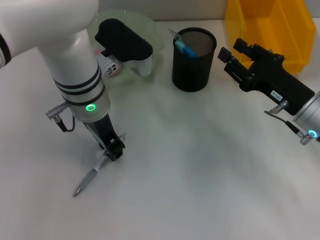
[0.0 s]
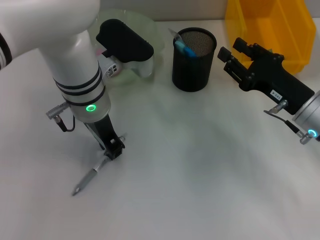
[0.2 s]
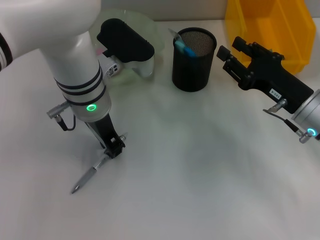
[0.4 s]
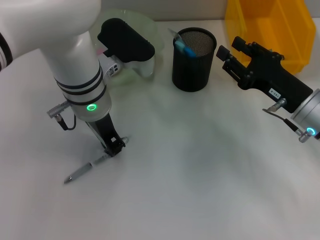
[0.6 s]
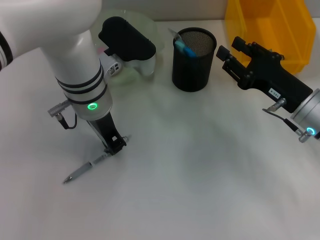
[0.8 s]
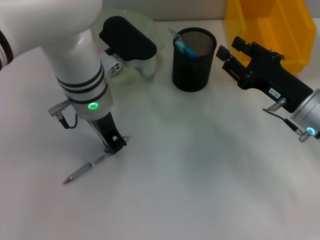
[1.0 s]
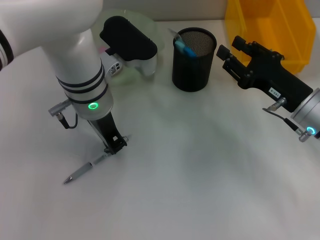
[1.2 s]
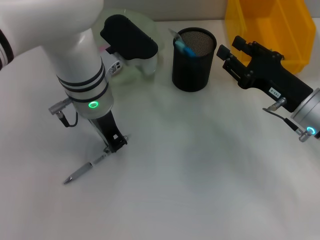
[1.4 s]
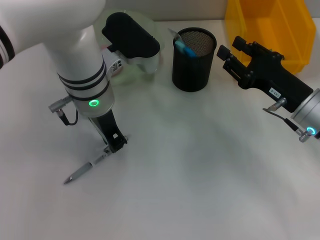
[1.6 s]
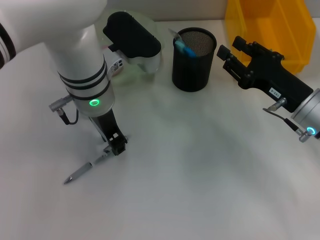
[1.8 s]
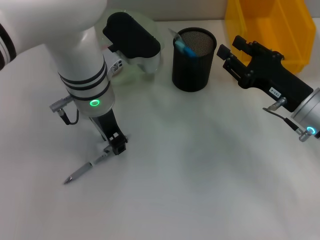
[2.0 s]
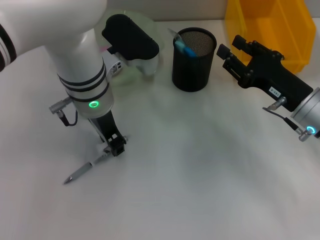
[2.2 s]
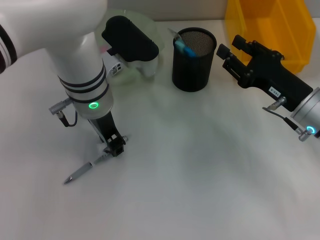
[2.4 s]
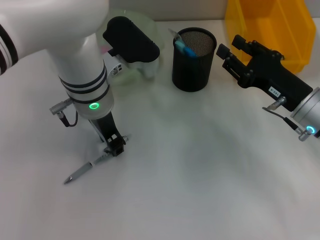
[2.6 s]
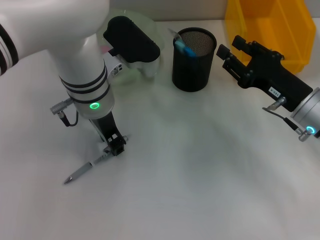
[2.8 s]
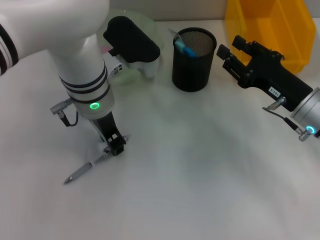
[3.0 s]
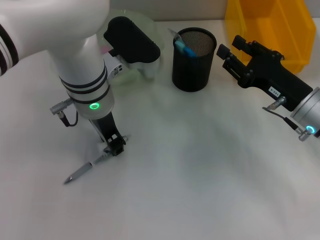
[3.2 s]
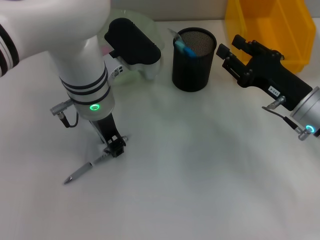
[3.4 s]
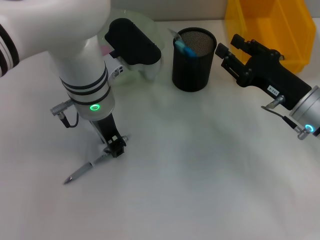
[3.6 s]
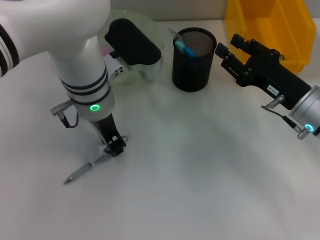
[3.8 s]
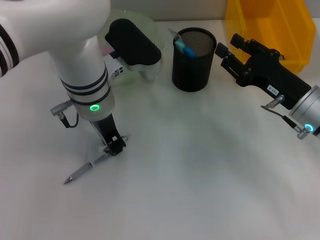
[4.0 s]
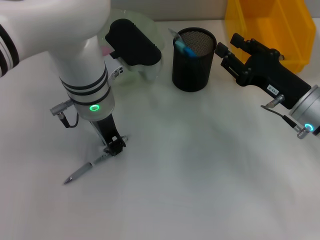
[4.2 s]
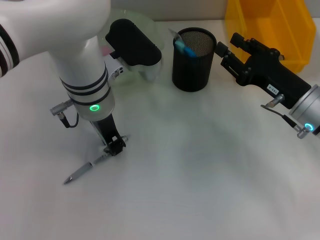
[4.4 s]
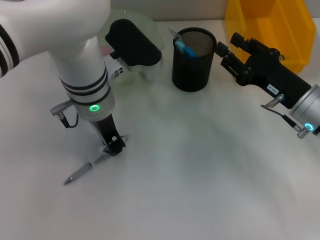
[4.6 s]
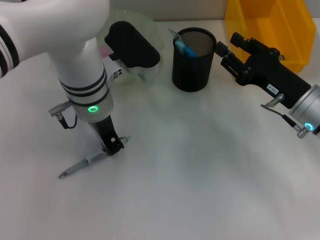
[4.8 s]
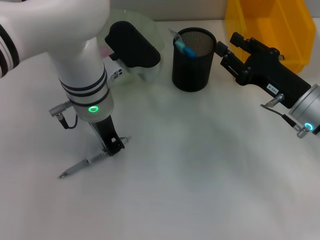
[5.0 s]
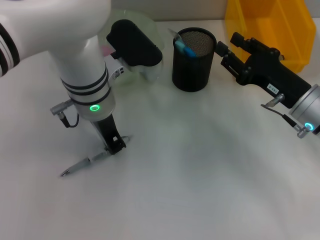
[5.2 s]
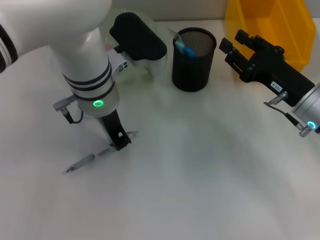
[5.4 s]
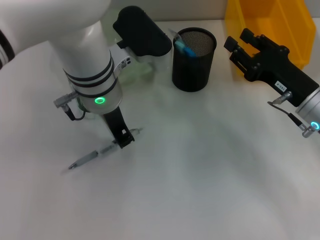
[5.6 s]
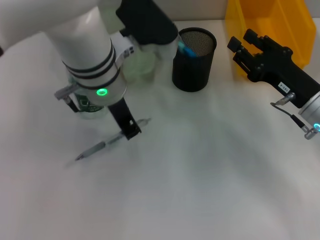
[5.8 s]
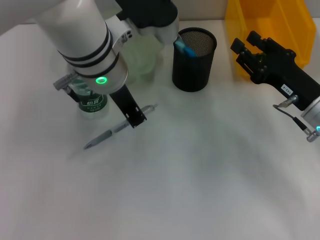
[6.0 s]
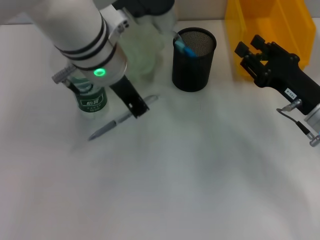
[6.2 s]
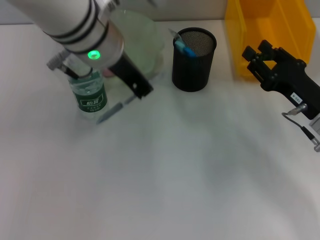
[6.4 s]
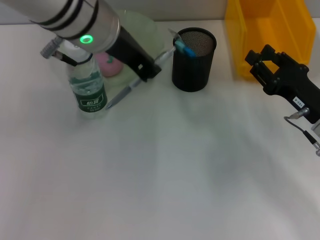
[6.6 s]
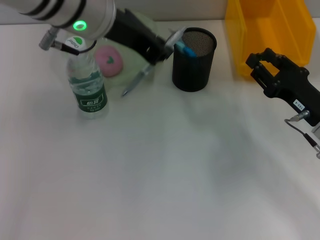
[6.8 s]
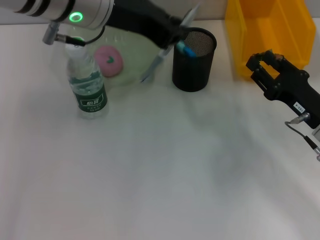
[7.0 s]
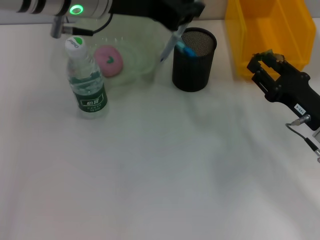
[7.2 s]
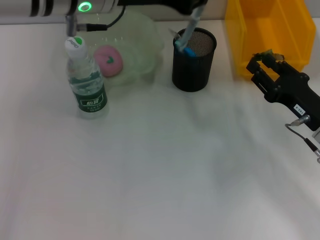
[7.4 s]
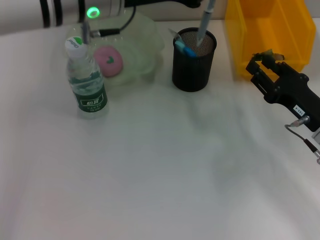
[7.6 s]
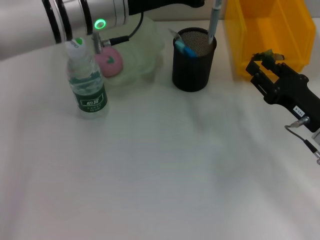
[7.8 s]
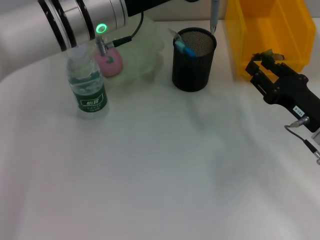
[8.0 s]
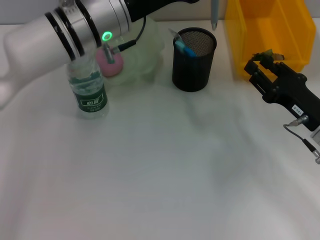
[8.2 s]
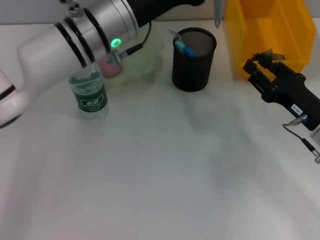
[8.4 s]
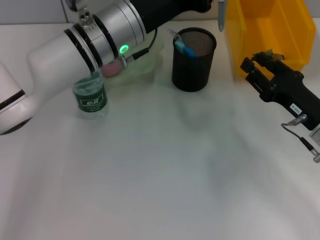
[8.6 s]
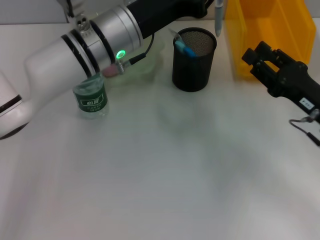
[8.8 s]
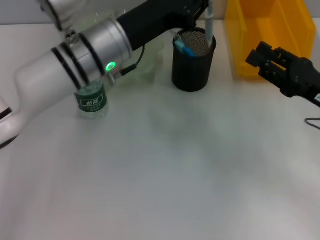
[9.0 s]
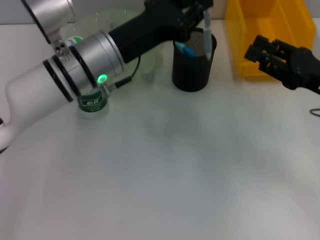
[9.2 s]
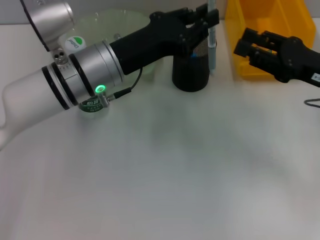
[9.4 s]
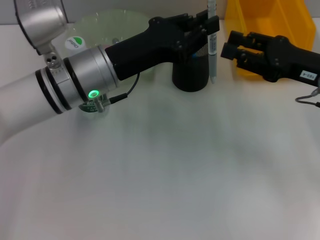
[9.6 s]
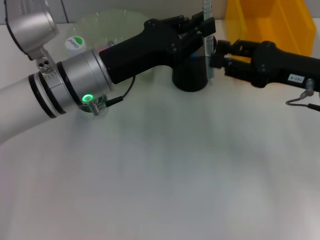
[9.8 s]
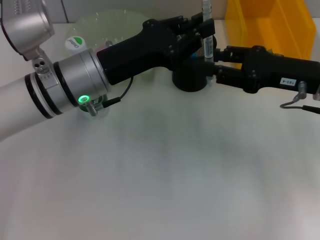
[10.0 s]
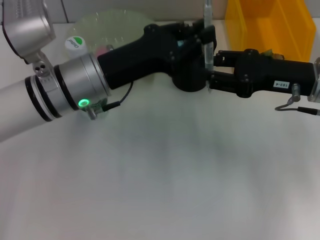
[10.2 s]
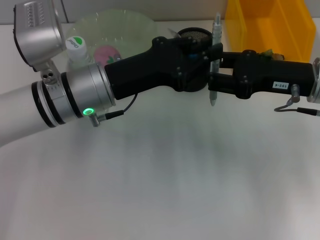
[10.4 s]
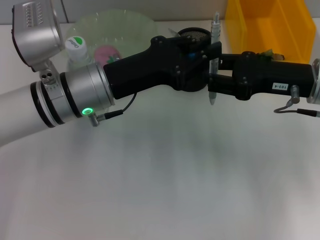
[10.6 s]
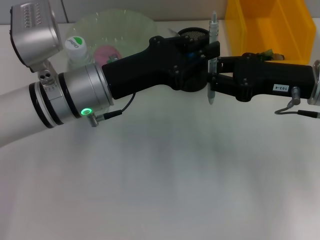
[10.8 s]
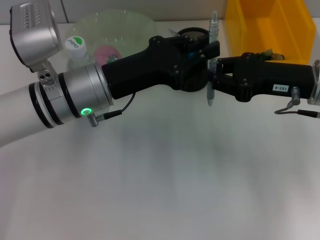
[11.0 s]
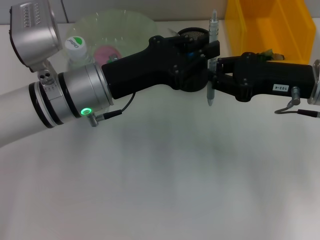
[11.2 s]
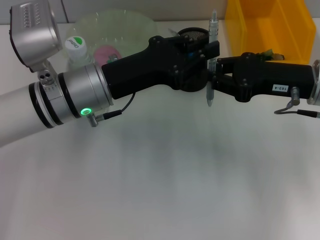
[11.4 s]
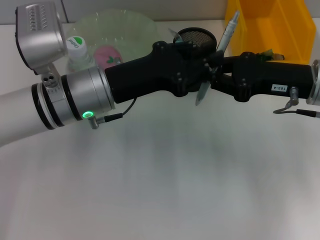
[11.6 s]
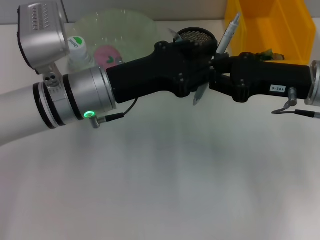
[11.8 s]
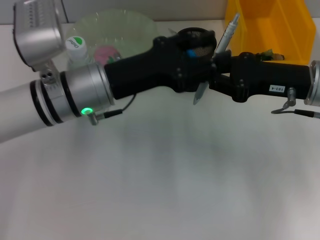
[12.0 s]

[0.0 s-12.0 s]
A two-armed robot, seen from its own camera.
Step, 0.0 to 5.0 s: Grab the gray spring-action pen with the left hand.
0.0 to 1.6 s: Neither gripper changes place.
1.6 to 4.4 s: Both grippers stay put.
4.4 to 6.0 s: The left gripper moves upward, about 5 cm.
7.6 to 9.0 s: The left gripper is displaced downward by some 10 cm, while the right gripper shifts by approximately 5 cm.
9.0 to 10.4 s: The right gripper travels upward and to the left by about 5 cm.
10.4 to 12.0 s: The right gripper closes. The left gripper opens.

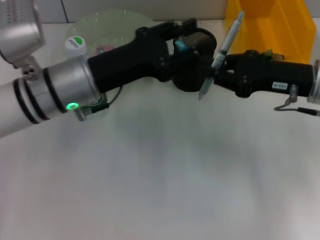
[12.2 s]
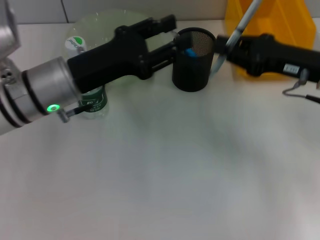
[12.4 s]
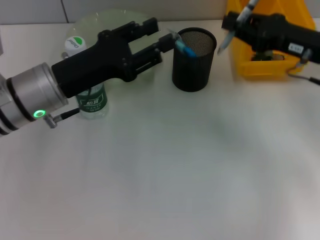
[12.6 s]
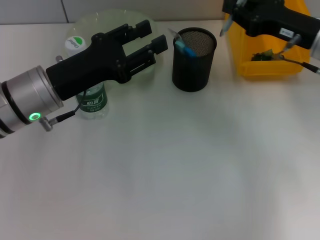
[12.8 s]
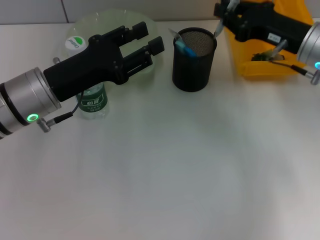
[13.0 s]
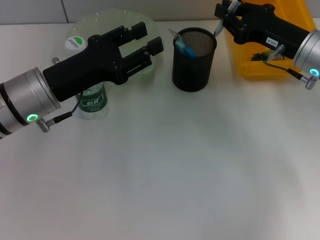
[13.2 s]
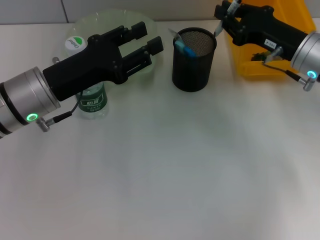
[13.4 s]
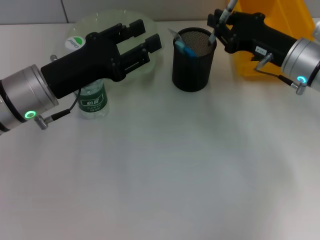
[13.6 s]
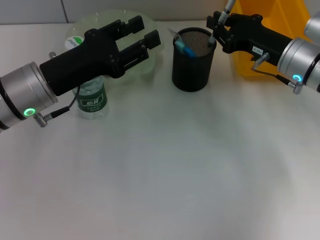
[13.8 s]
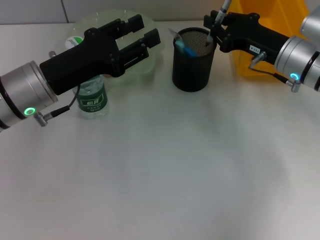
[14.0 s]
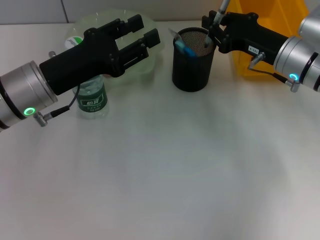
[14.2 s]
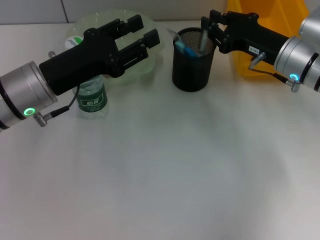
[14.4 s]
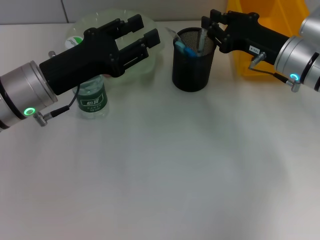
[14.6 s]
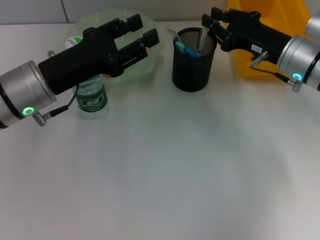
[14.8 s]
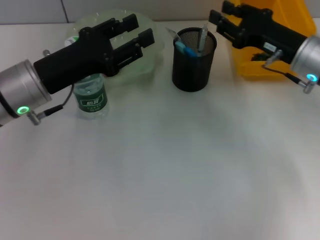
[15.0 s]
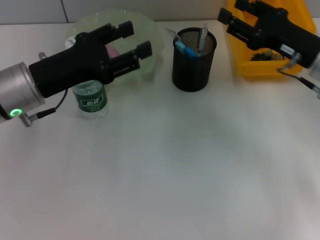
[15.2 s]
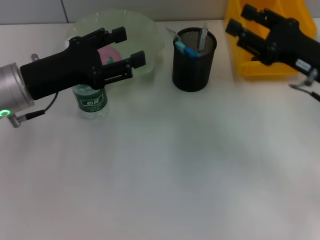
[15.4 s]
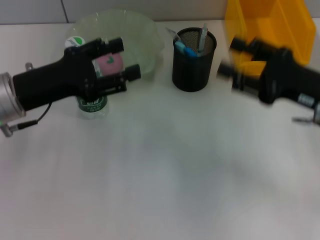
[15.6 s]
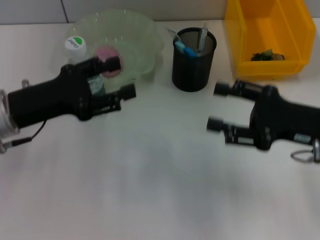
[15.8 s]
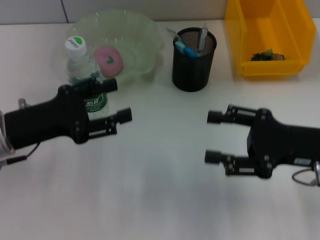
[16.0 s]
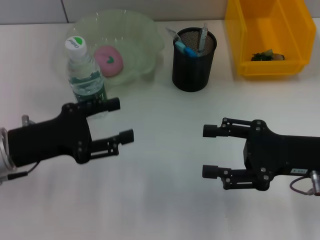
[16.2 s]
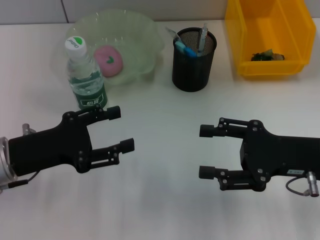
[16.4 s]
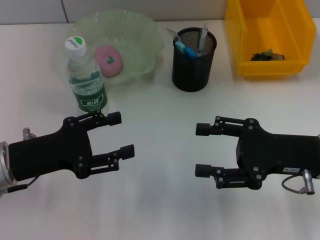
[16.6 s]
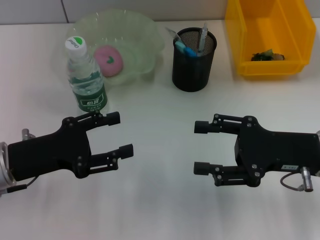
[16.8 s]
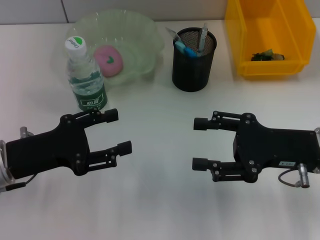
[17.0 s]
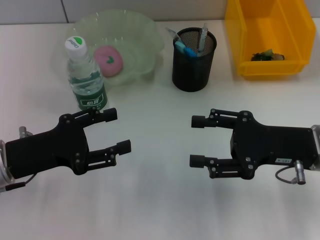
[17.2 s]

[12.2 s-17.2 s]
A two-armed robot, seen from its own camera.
Step, 13.0 to 15.0 s: Place the gray spring-action pen into the pen holder with the right hand.
12.2 to 13.8 s: The right gripper heads forward, covering about 5 cm; the left gripper shifts approximately 5 cm to the left.
13.8 to 15.6 s: The right gripper heads backward, covering roughly 10 cm, and opens its fingers.
15.6 to 17.2 s: The left gripper goes approximately 5 cm backward.

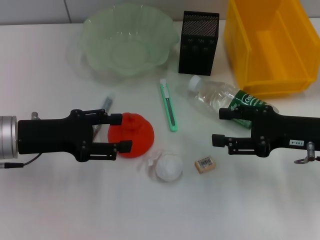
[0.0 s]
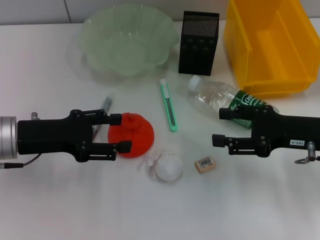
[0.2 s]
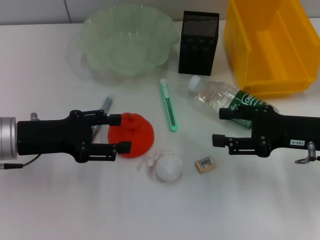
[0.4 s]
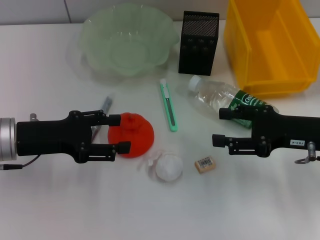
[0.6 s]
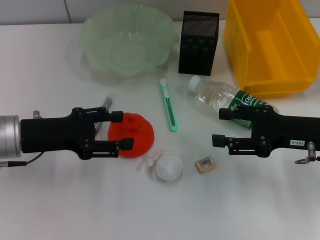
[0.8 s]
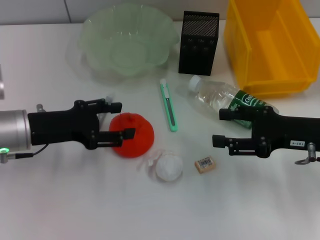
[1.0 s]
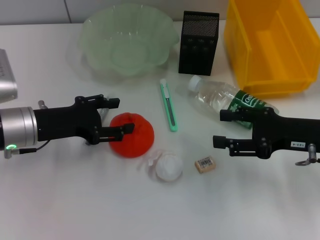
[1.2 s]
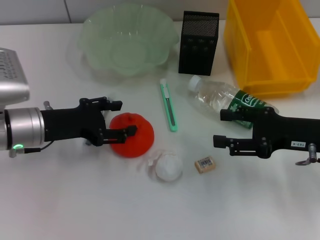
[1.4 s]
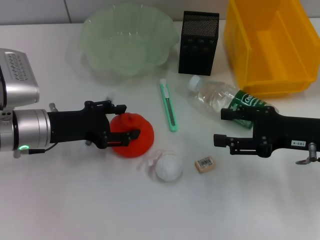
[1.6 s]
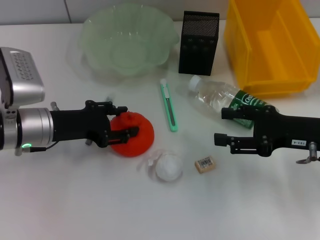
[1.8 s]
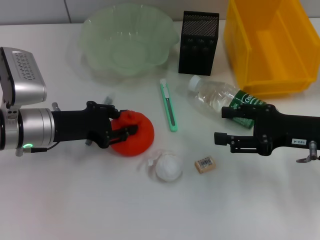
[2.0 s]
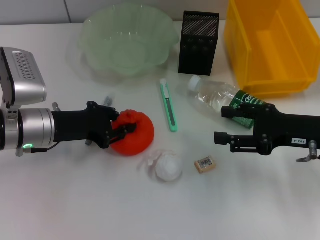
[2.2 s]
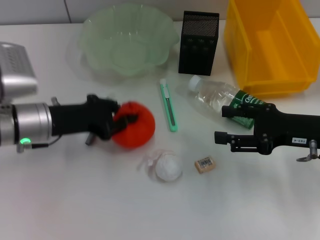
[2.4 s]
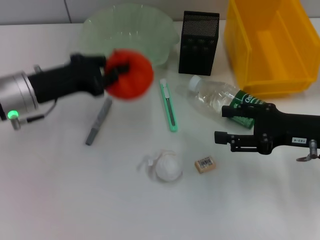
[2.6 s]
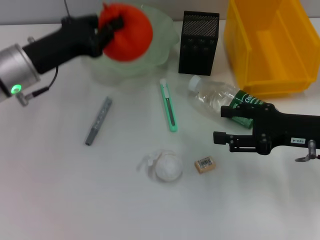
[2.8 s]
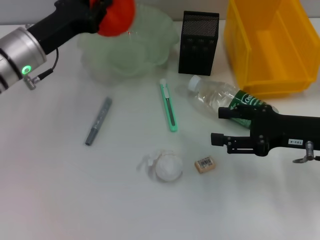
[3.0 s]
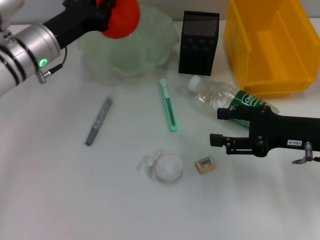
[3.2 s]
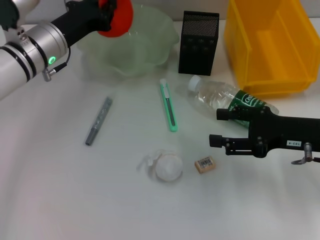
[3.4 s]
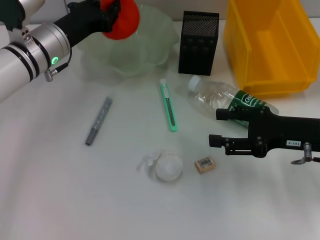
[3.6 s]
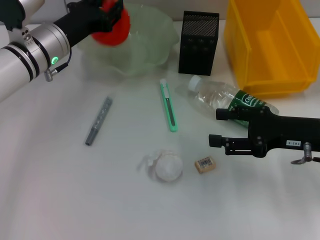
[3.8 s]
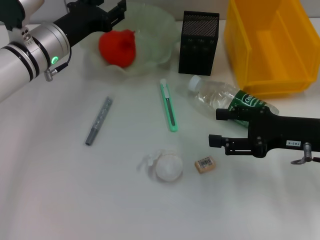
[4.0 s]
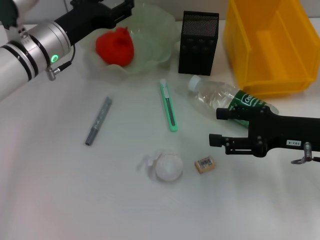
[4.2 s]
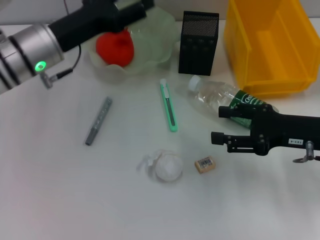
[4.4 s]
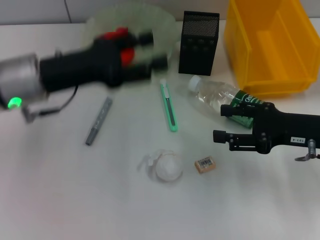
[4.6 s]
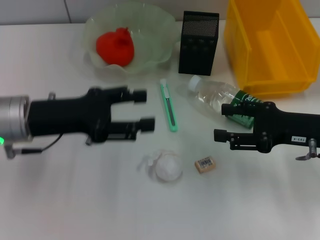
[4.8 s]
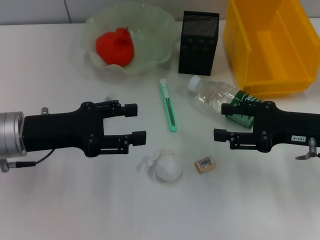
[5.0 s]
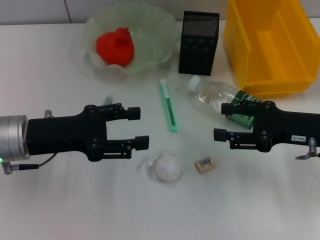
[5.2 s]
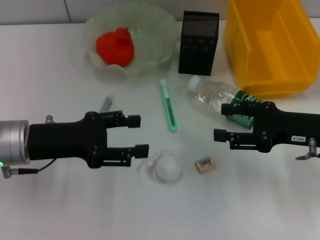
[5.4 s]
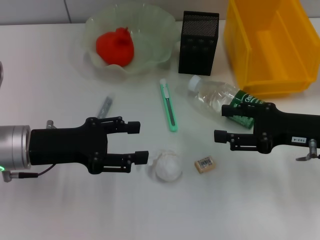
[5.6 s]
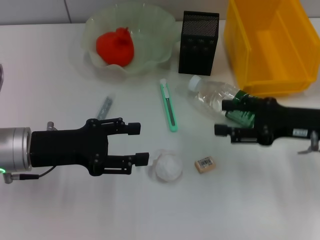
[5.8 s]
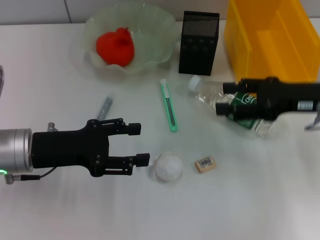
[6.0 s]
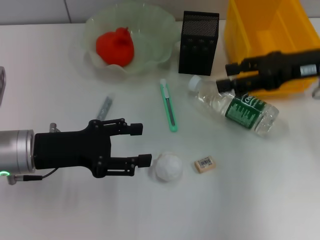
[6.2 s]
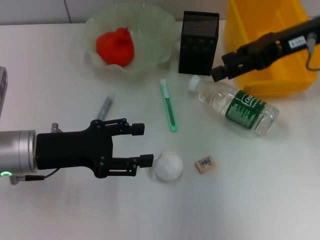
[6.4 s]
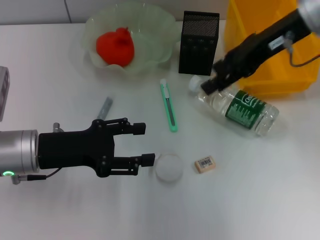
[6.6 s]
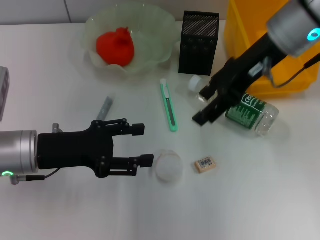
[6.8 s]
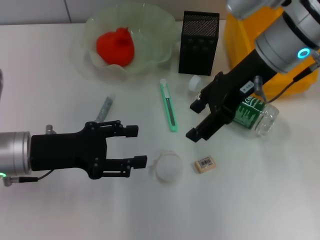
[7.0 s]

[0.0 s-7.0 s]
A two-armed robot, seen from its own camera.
Step, 0.0 to 2.0 s: Grab the orange with the left hand.
Step, 2.2 to 3.8 s: Place the orange into the fruit bowl with the left hand.
0.0 to 1.4 s: The grippers move only a little.
1.4 to 2.8 s: The left gripper ends up about 5 cm from where it was, and closes up.
2.8 to 4.2 s: The left gripper goes approximately 5 cm forward, and opens up.
4.2 to 5.6 s: The left gripper heads backward, covering roughly 15 cm.
5.6 to 7.0 s: The right gripper goes some 20 cm upward, to the left and forward.
